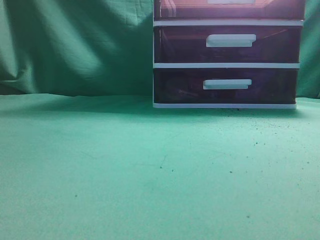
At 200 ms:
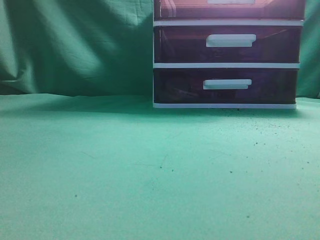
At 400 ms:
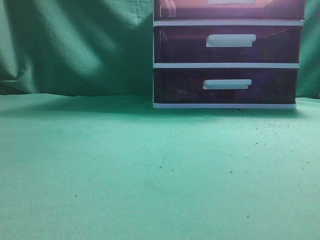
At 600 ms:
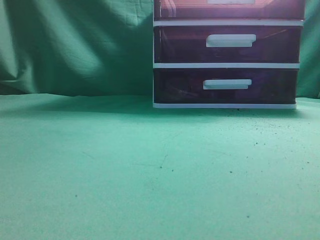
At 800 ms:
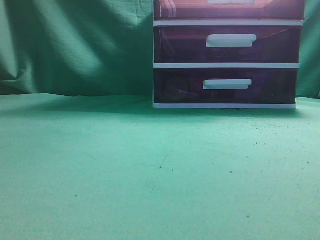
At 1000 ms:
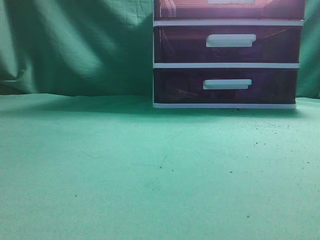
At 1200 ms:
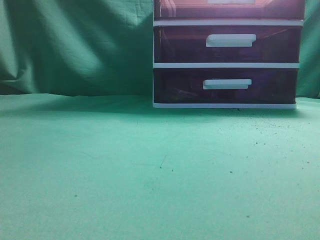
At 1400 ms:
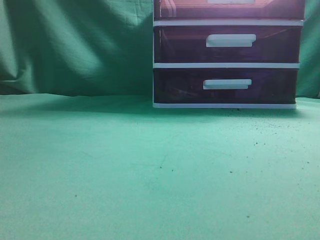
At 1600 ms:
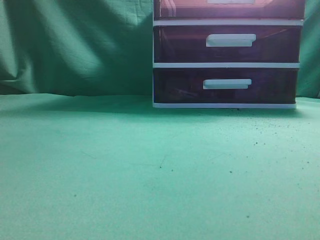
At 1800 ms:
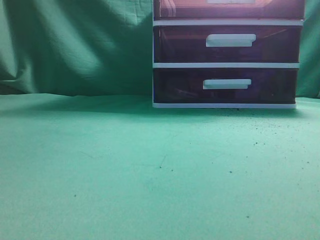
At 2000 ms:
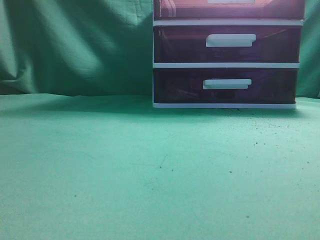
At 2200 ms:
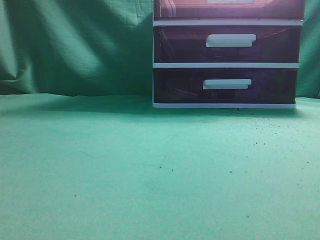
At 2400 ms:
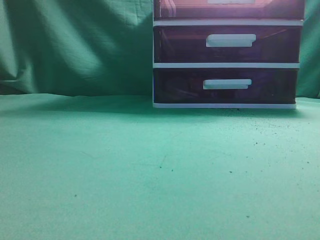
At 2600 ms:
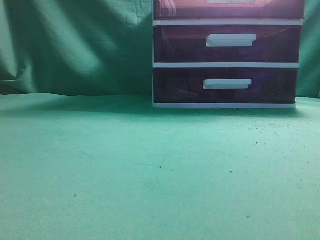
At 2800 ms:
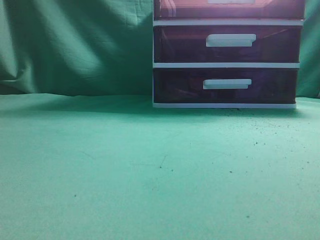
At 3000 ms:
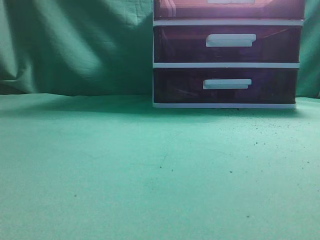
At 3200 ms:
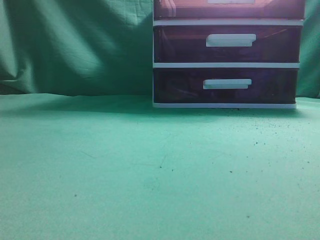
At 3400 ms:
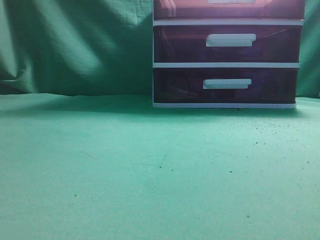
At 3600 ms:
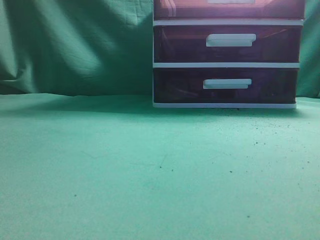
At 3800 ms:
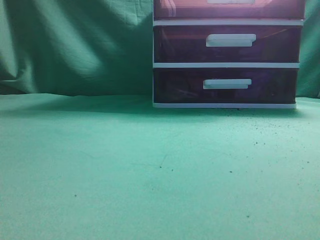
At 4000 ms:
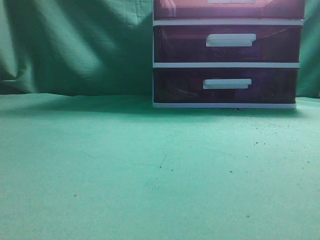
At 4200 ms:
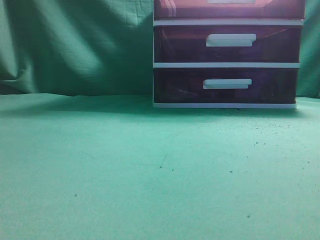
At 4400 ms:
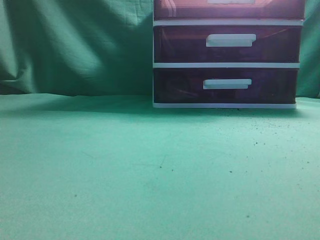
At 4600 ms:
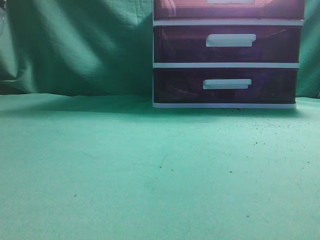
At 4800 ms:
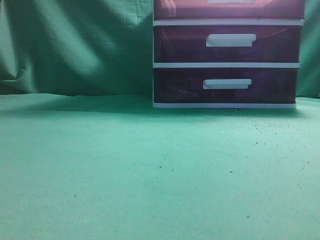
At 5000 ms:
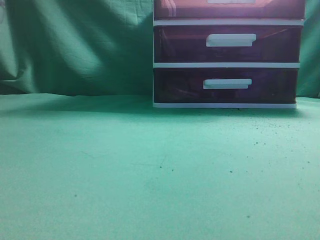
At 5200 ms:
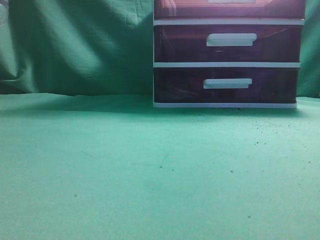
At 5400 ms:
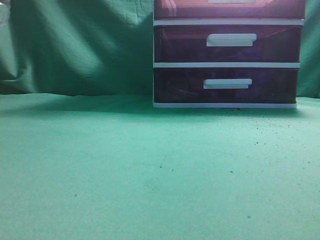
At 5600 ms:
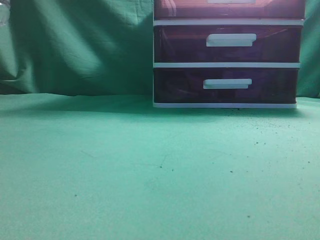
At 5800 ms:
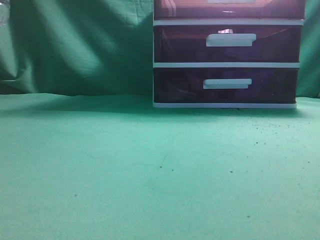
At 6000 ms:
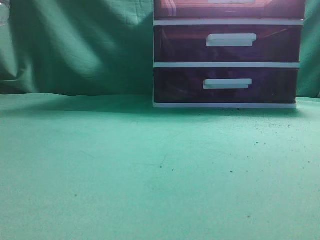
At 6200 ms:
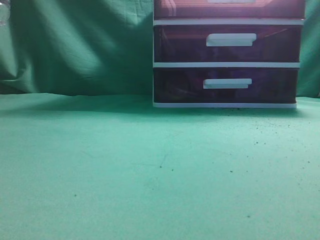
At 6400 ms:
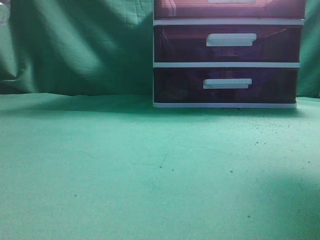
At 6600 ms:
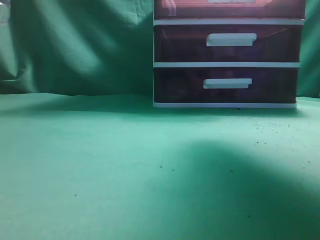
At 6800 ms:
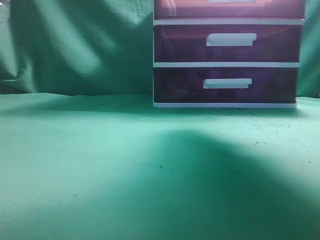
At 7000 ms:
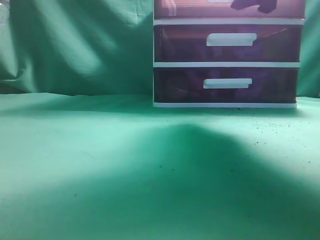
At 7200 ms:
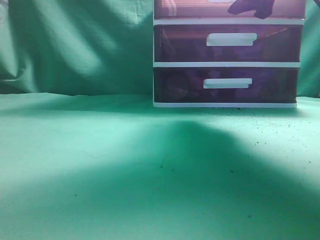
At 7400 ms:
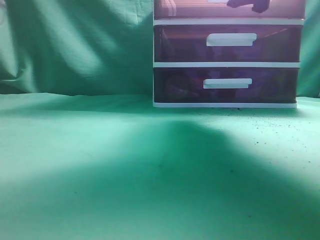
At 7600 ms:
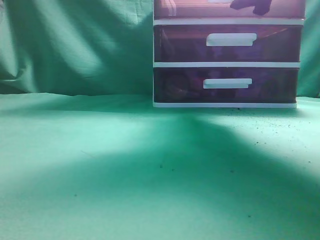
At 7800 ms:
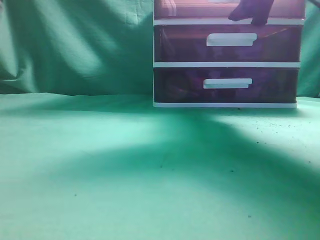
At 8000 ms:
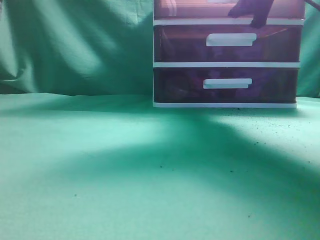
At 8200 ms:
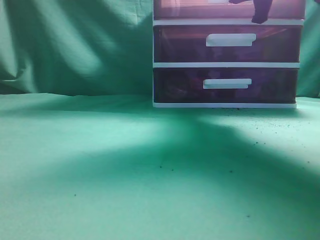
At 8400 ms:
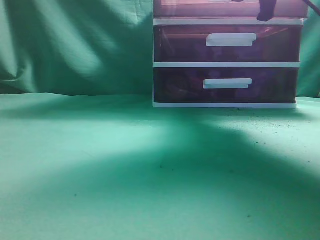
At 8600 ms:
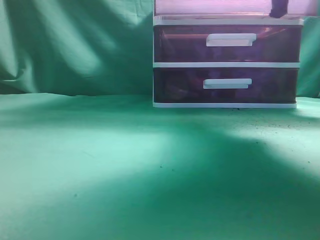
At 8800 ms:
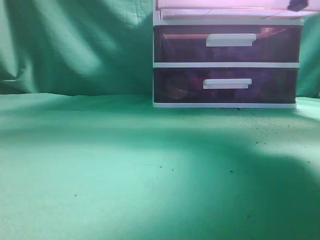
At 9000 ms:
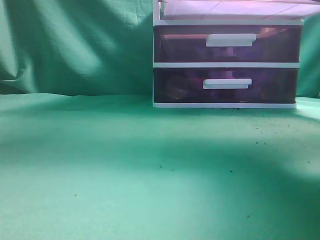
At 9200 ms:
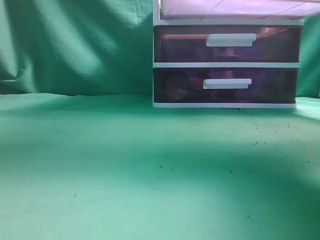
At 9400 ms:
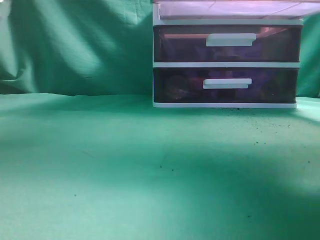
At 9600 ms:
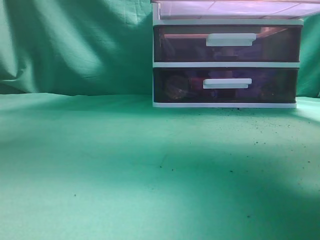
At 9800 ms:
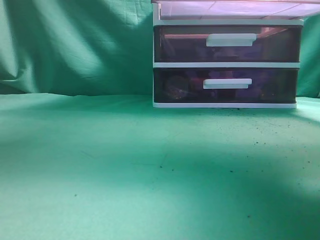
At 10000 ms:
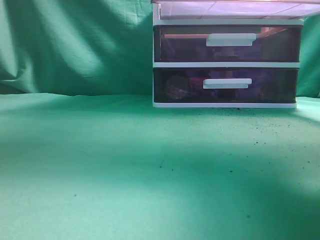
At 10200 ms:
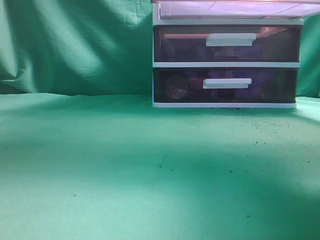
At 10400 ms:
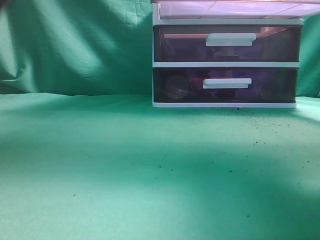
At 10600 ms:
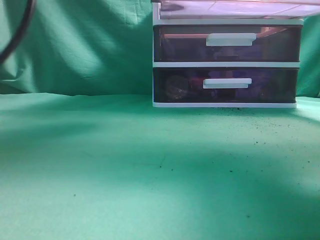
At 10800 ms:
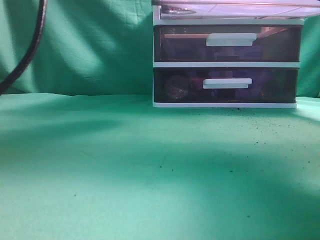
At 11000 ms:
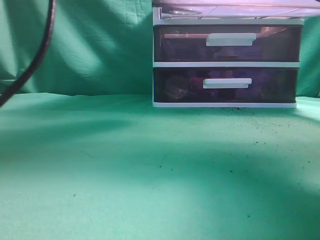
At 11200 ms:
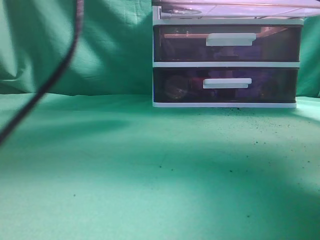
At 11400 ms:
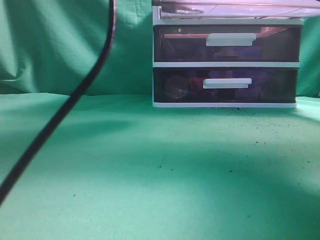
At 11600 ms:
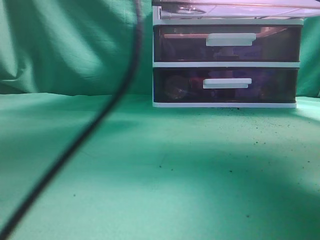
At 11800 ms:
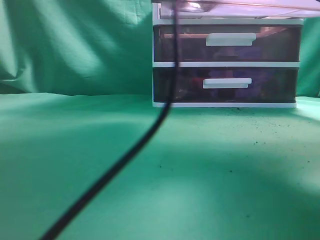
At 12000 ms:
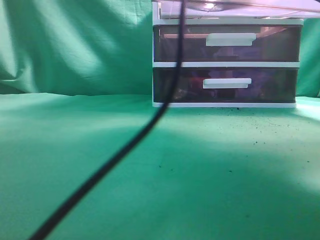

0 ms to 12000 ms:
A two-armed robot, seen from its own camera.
Task of the whole recording: place the water bottle into the drawer.
Step, 0 ms to 9800 ms: Open the drawer.
6000 ms to 7600 ms: The right gripper moves forward, some 25 cm, and opens its fingers.
7600 ms to 9000 ms: The right gripper travels backward by roughly 10 cm, and closes its fingers.
9000 ms to 10400 ms: The left gripper shifts about 25 cm to the right, forward and upward.
10400 ms to 12000 ms: The left gripper moves to the right and downward, about 20 cm, and opens its fingers.

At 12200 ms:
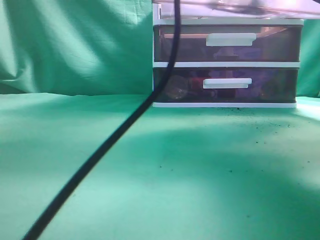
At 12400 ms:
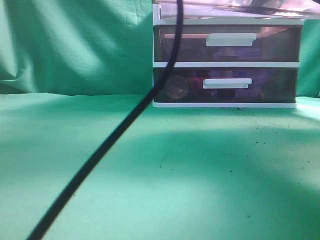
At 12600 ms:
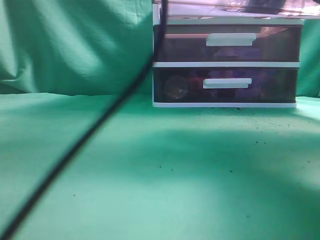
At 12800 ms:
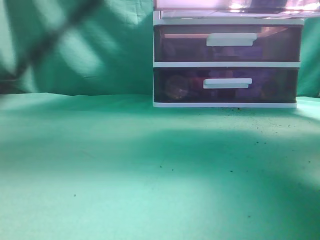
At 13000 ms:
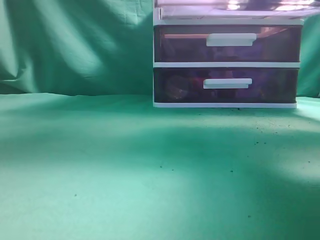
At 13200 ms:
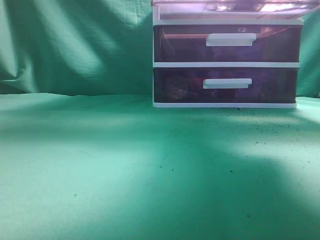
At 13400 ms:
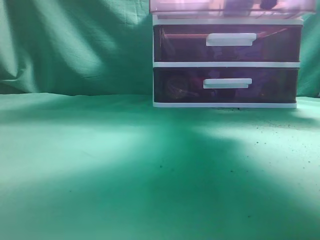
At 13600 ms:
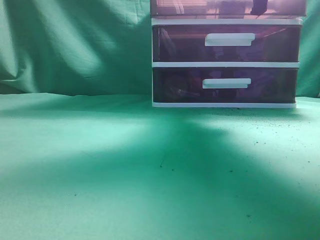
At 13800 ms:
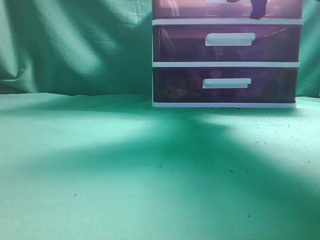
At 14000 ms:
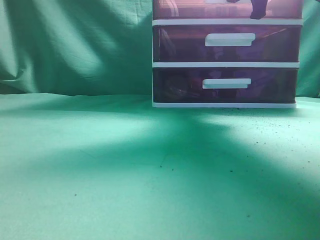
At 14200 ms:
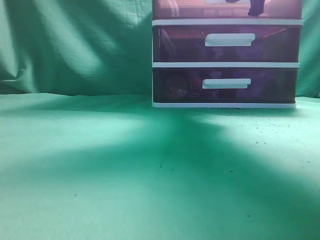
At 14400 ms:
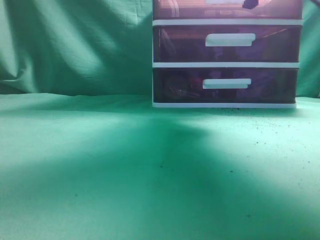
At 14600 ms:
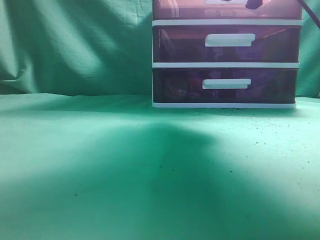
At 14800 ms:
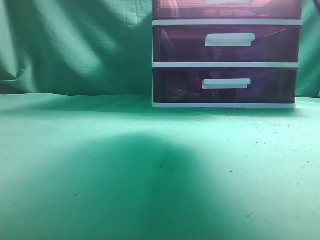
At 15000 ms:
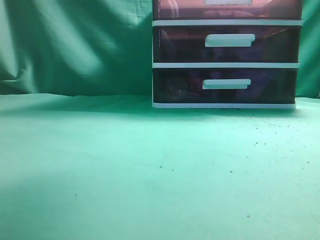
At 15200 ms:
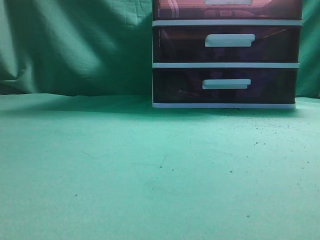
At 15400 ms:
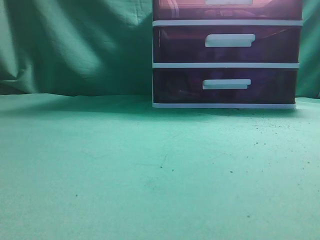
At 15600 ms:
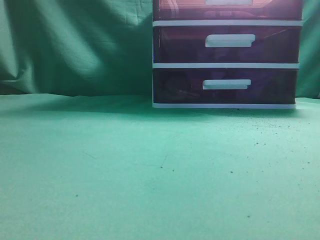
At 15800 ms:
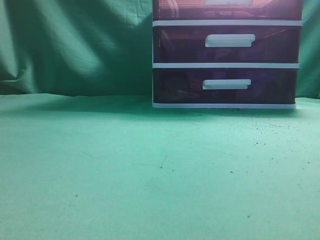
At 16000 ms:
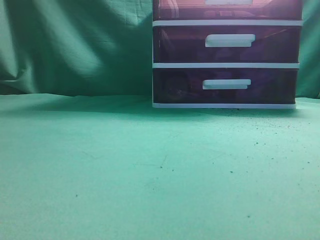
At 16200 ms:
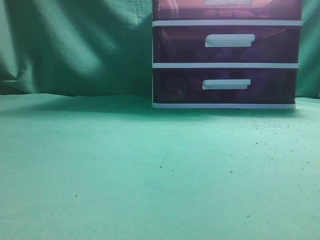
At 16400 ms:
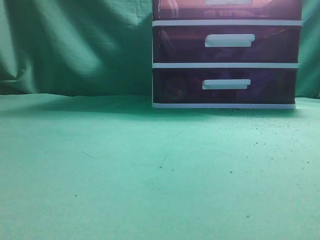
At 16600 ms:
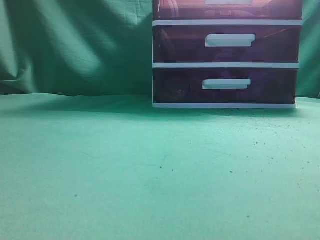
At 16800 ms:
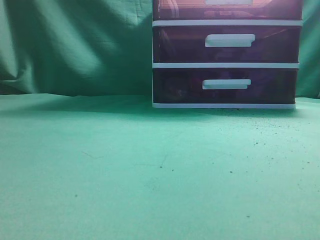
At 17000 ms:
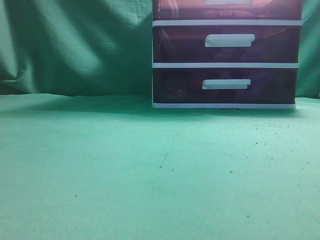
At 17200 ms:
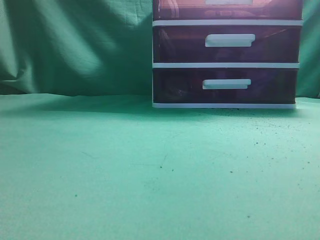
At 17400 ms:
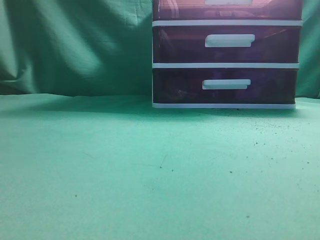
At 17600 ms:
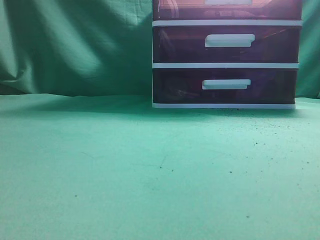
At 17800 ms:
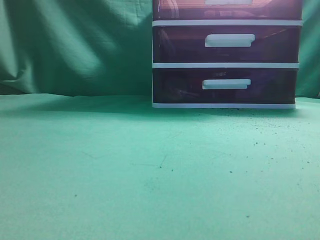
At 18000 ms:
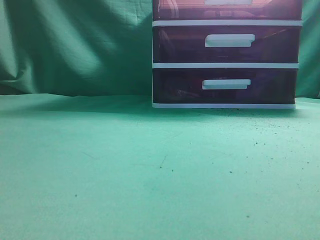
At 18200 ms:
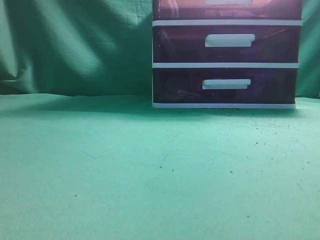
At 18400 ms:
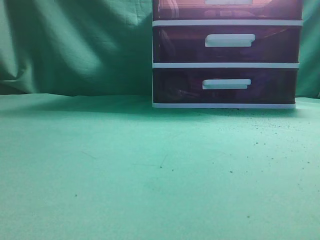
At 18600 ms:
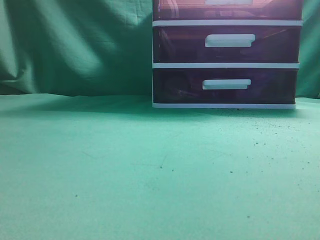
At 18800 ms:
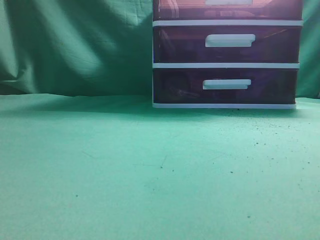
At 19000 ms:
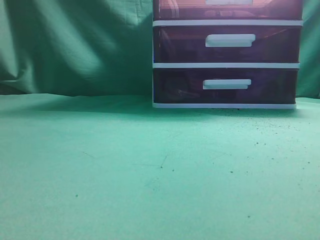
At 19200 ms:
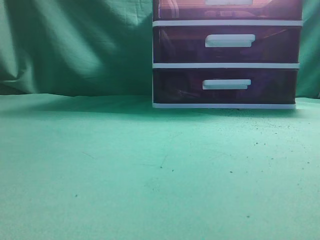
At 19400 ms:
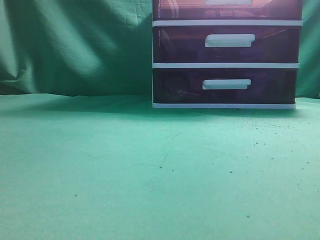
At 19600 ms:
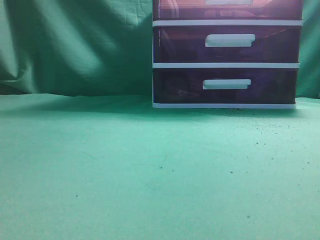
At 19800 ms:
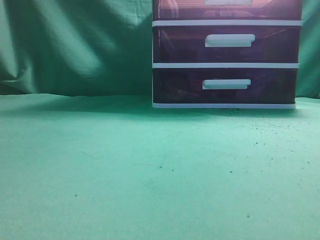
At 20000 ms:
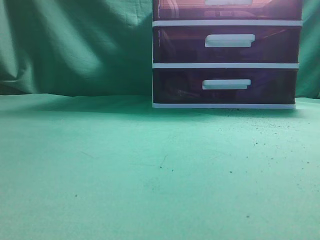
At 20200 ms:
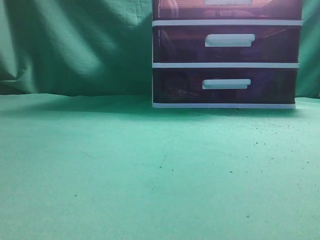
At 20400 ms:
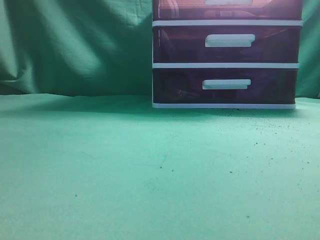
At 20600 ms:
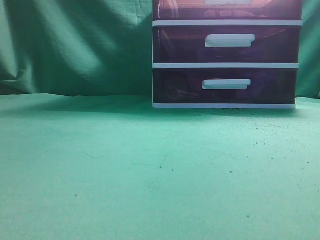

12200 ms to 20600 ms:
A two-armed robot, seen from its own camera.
Task of the whole recording: place the water bottle into the drawer.
Step, 12400 ms to 14400 ms: Close the drawer.
12200 ms to 13600 ms: The right gripper travels forward by about 15 cm. The left gripper shifts roughly 35 cm to the left, upward and backward, and closes.
13600 ms to 15000 ms: The right gripper is displaced backward by approximately 10 cm, and opens its fingers. Meanwhile the left gripper is displaced downward, backward and to the left by some 15 cm.
15000 ms to 16400 ms: The right gripper moves backward, approximately 25 cm, and closes its fingers. The left gripper travels downward, backward and to the left by roughly 20 cm.
